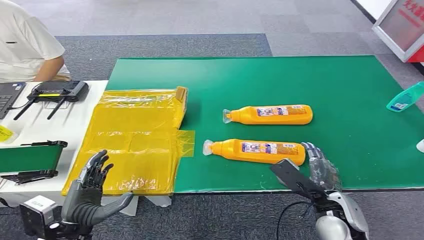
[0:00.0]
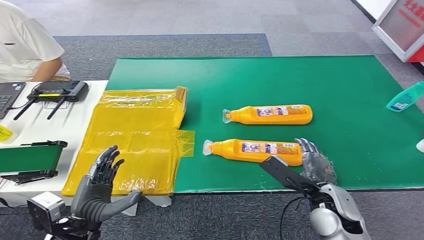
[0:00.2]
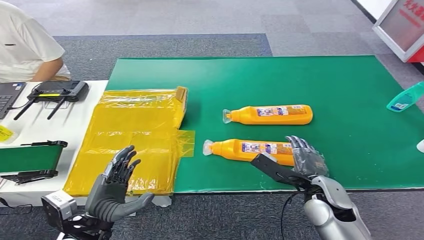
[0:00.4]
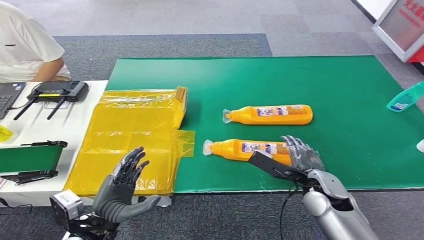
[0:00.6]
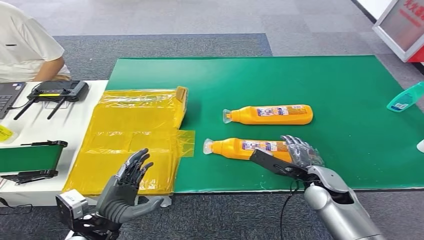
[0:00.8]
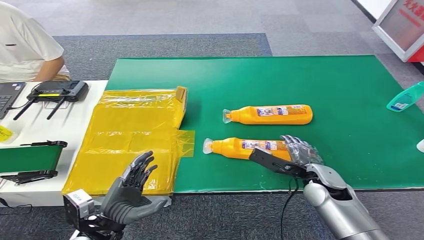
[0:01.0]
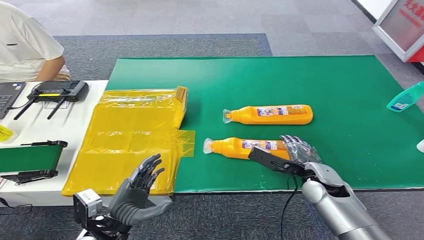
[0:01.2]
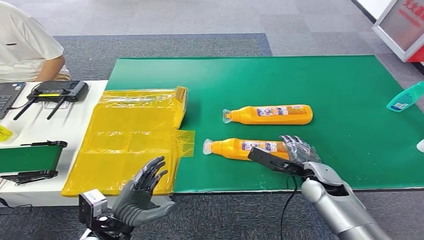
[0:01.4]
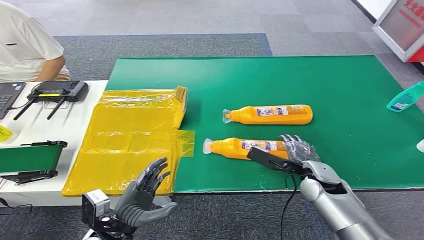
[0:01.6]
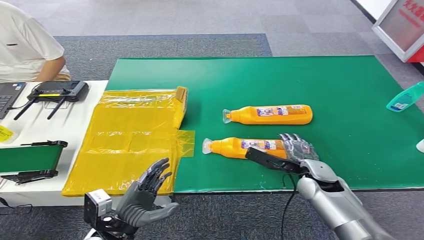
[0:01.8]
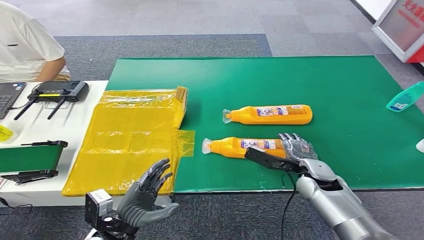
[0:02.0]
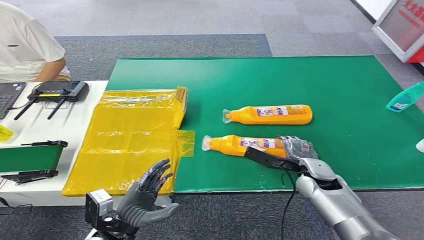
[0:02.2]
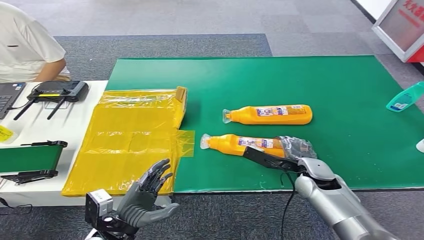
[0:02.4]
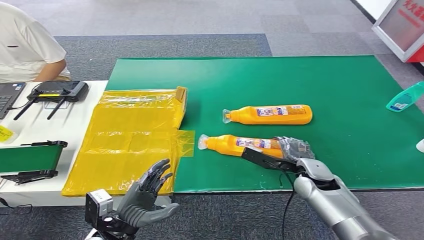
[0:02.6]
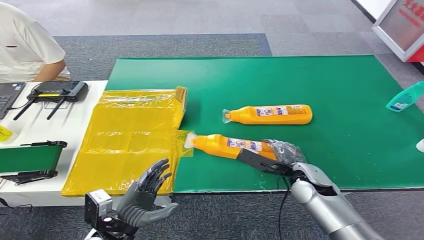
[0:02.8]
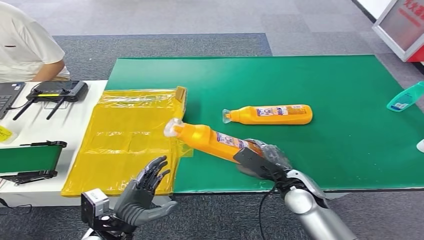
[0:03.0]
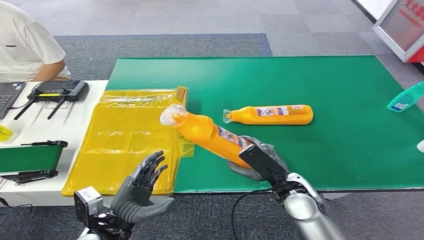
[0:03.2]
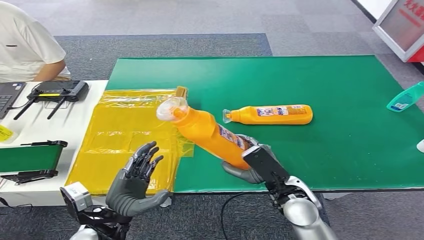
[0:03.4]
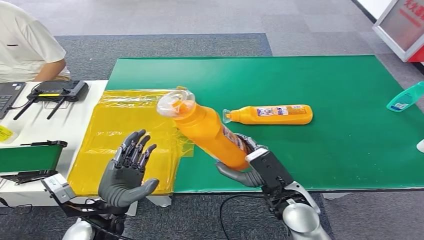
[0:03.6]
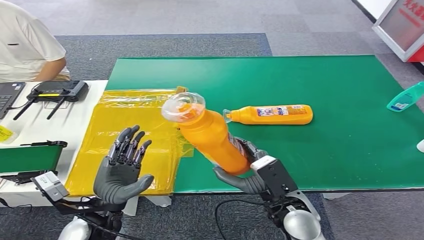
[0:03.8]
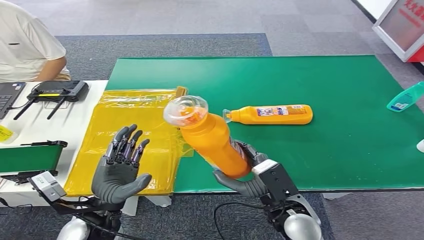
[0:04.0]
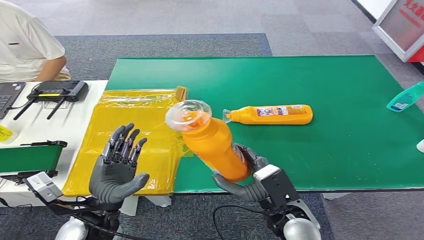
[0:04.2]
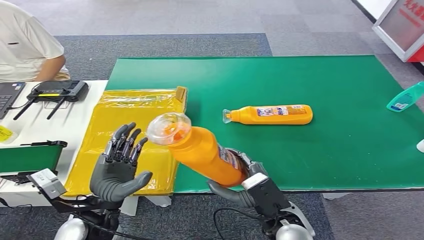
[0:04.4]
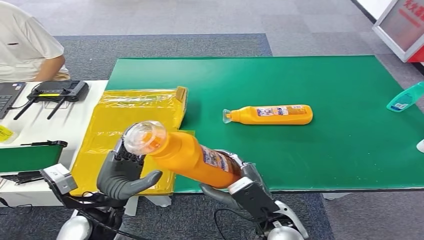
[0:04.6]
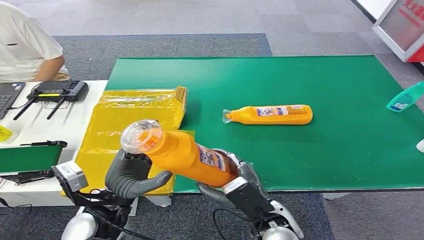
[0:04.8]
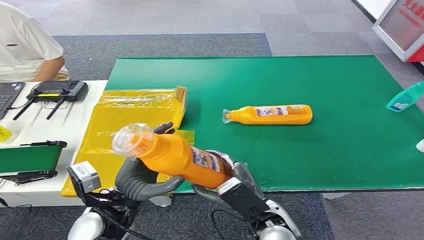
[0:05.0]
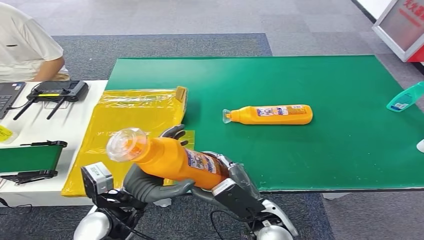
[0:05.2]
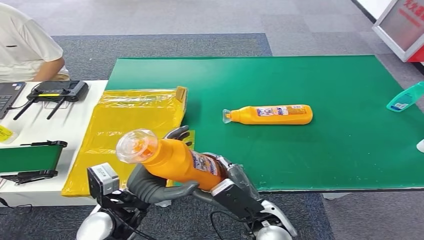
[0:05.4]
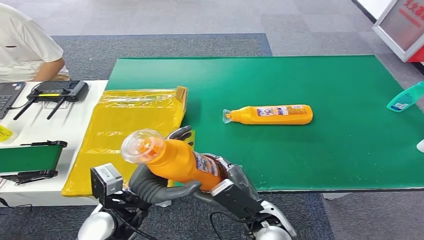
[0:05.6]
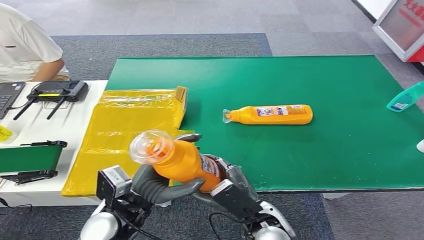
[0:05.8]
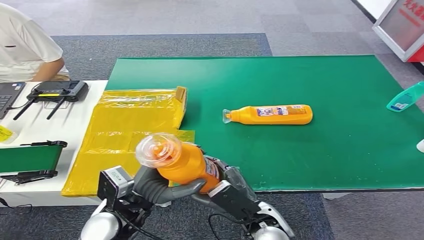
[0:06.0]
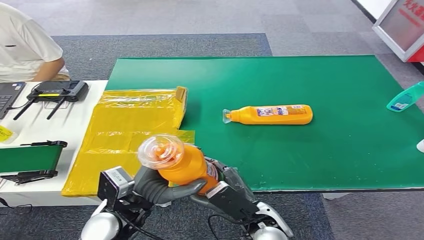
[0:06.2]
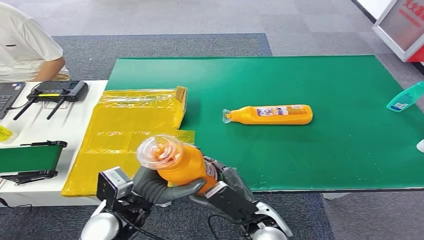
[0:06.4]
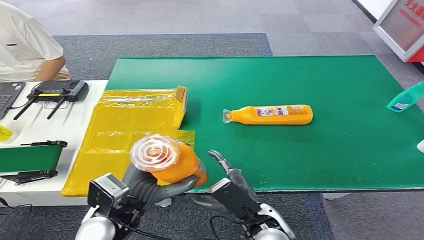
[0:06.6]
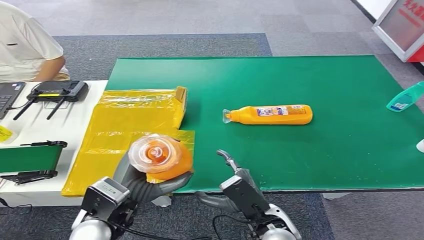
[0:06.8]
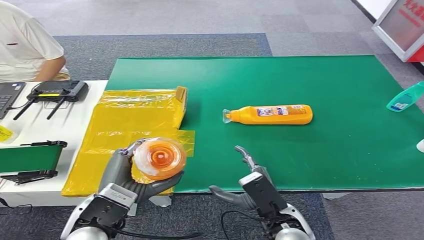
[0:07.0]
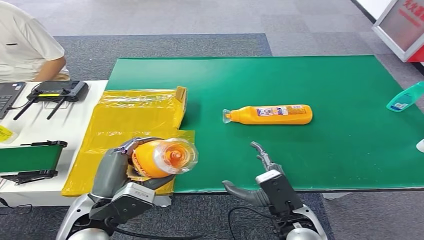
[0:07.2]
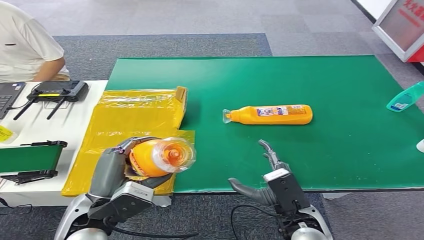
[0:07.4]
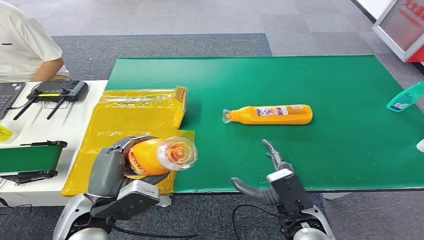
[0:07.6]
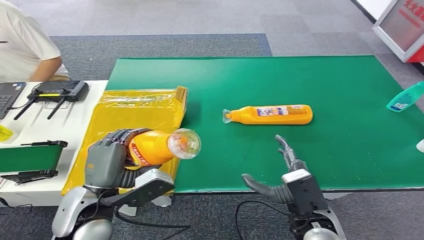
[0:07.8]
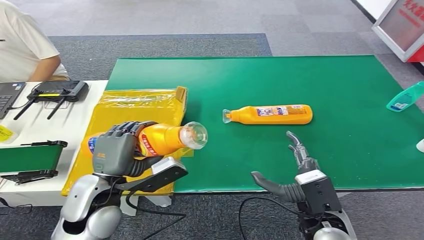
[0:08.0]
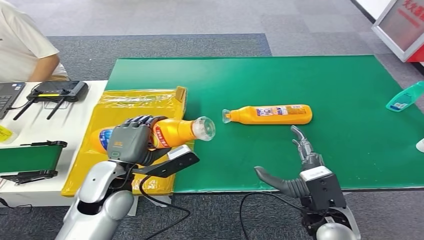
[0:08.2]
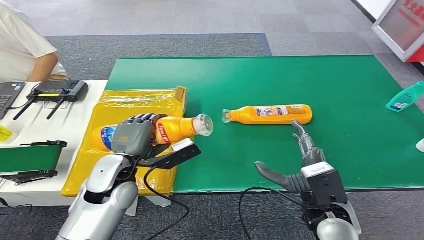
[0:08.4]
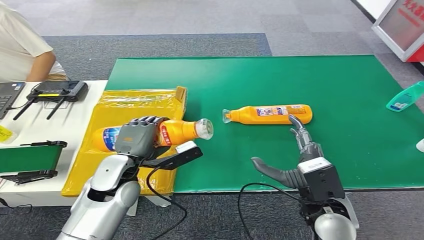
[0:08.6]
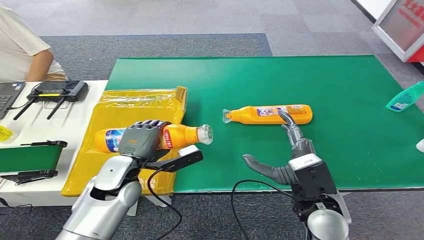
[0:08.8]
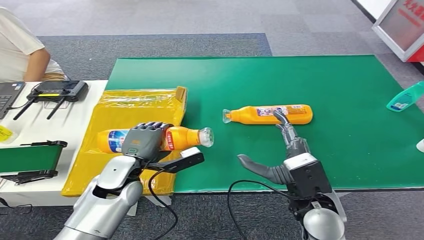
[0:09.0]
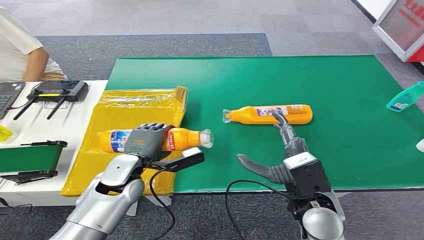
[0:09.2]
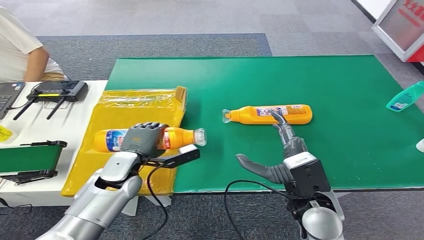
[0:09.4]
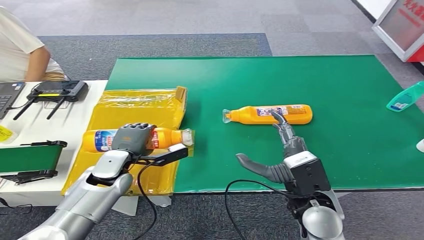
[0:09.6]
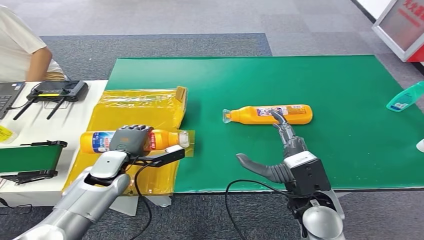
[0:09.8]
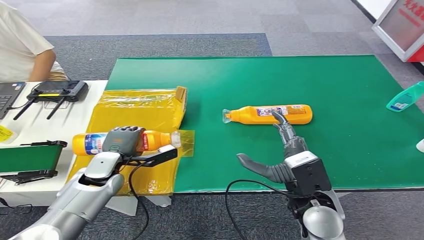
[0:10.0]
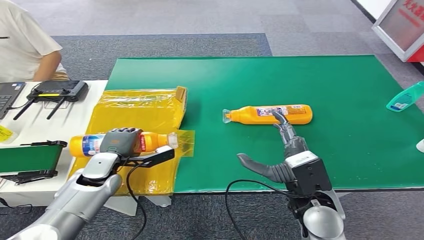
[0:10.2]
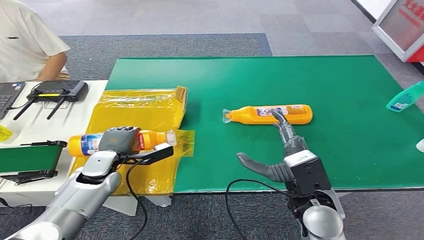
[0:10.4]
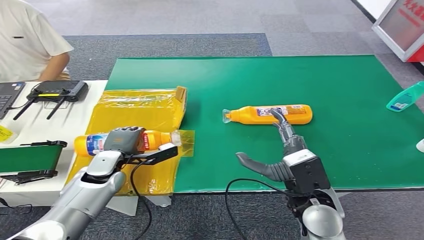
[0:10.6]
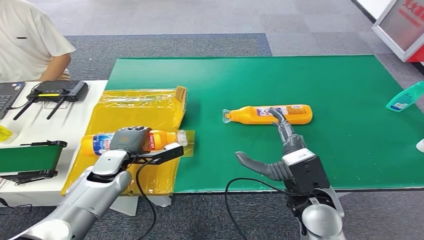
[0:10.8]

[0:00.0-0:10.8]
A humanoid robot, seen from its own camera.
Step, 0:00.0 to 0:05.6: Pick up the bottle from the table.
0:01.6 to 0:03.0: The right hand moves to the left, some 5 cm.
0:03.0 to 0:04.6: The right hand is displaced backward and to the left by roughly 10 cm, while the left hand travels upward by approximately 10 cm.
0:04.6 to 0:06.2: The hands move only a little.
0:06.2 to 0:07.8: The right hand moves to the right, approximately 10 cm. Meanwhile the left hand ends up approximately 5 cm from where it was.
0:07.8 to 0:09.2: The right hand moves approximately 5 cm. Meanwhile the left hand is displaced forward and downward by roughly 15 cm.
0:09.2 to 0:10.8: The left hand changes place by some 5 cm.

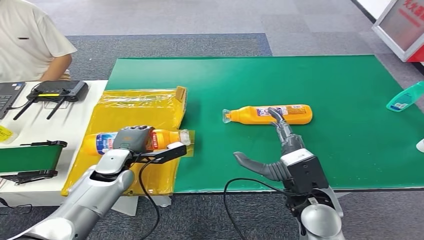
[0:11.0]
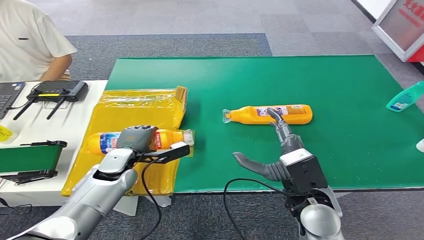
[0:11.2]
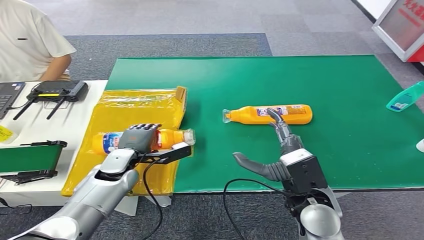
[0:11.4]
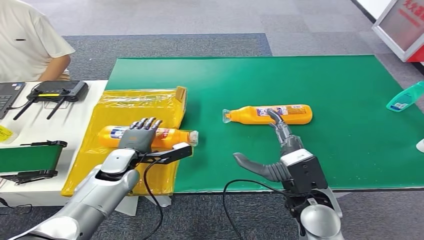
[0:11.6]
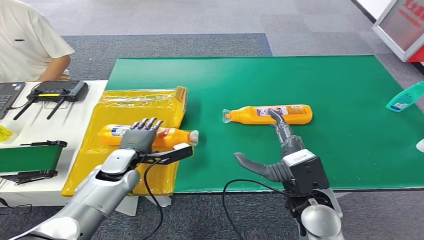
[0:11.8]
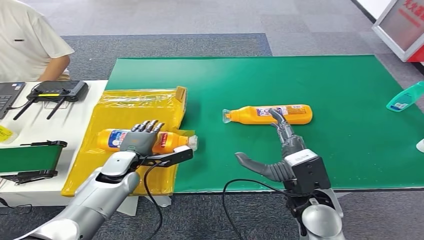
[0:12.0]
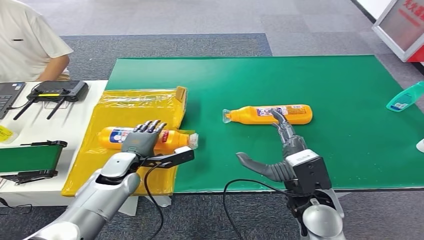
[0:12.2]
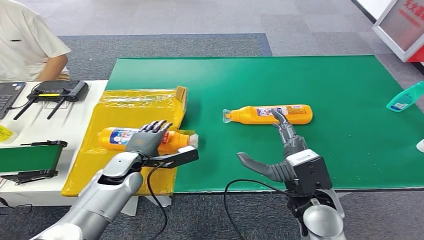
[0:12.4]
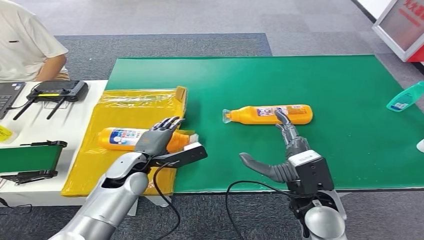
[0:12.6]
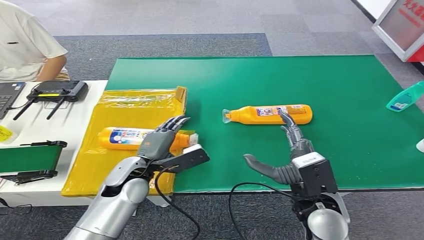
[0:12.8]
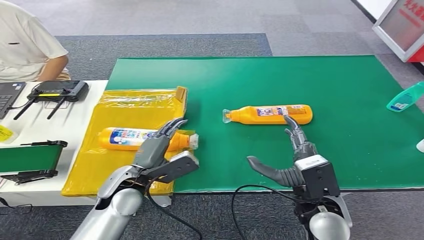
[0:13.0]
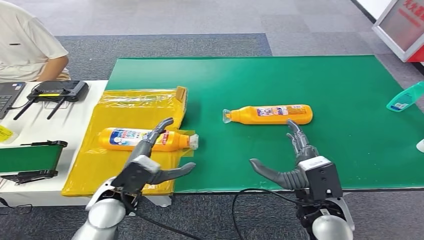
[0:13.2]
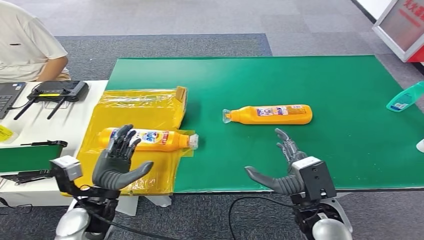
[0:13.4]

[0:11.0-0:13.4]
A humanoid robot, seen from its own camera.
Step, 0:11.0 to 0:13.4: Turn the bottle to the front side.
0:11.0 to 0:12.2: The hands move only a little.
0:12.2 to 0:13.4: The left hand goes some 10 cm backward.
